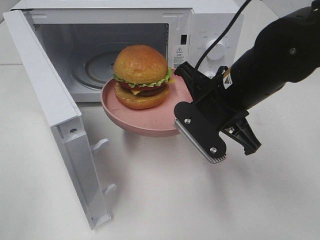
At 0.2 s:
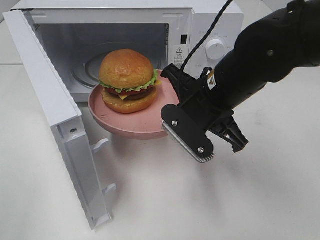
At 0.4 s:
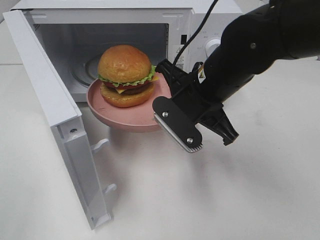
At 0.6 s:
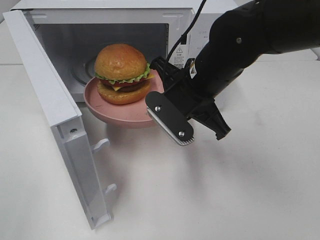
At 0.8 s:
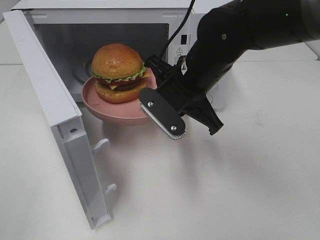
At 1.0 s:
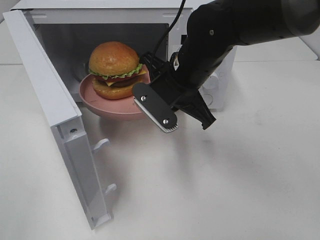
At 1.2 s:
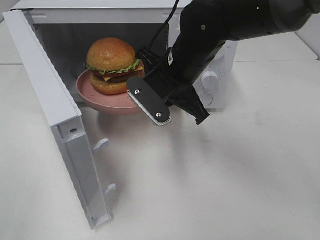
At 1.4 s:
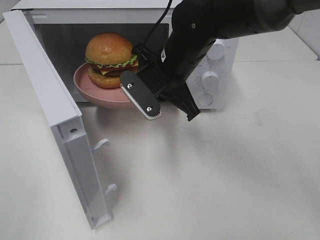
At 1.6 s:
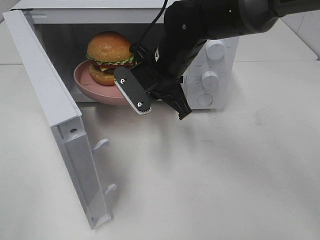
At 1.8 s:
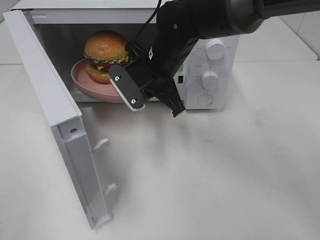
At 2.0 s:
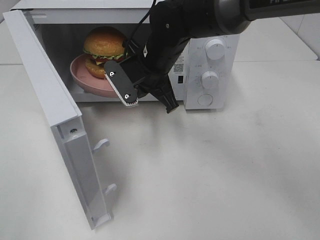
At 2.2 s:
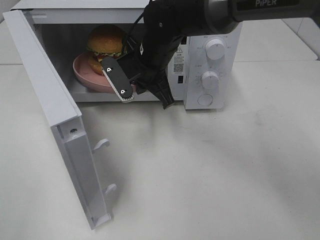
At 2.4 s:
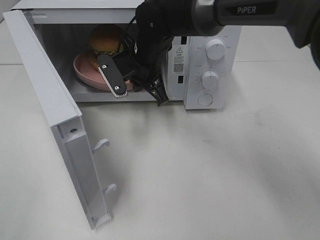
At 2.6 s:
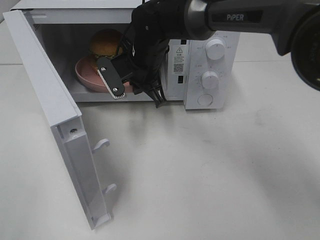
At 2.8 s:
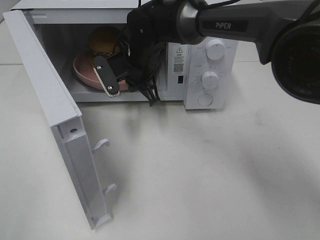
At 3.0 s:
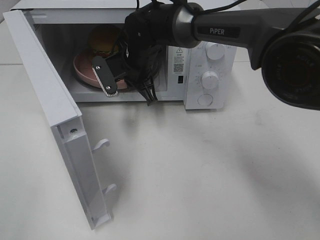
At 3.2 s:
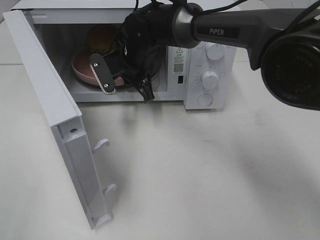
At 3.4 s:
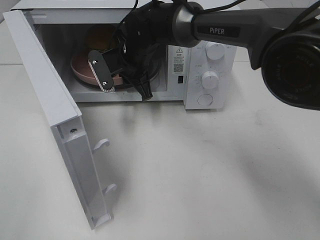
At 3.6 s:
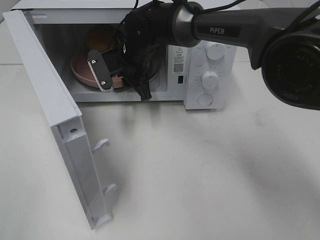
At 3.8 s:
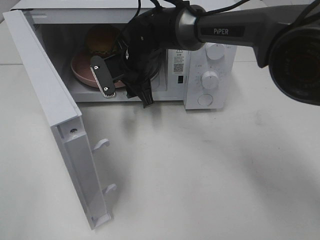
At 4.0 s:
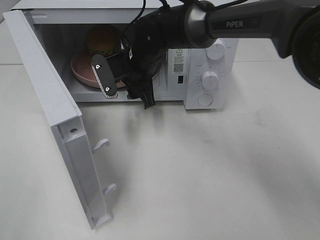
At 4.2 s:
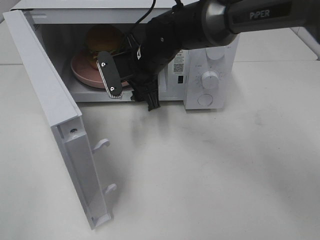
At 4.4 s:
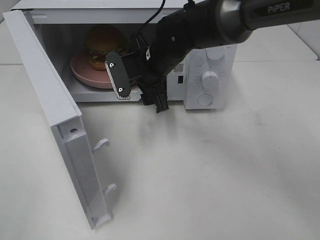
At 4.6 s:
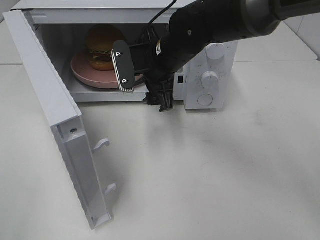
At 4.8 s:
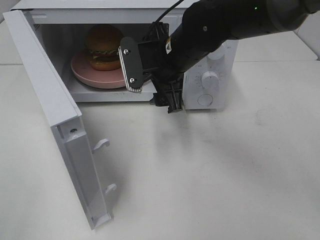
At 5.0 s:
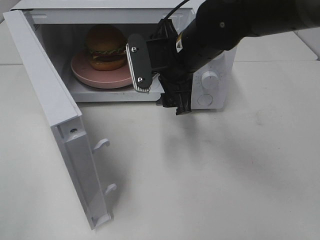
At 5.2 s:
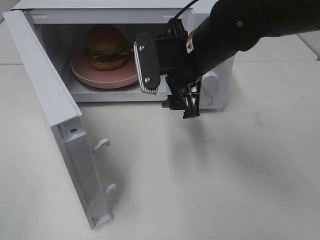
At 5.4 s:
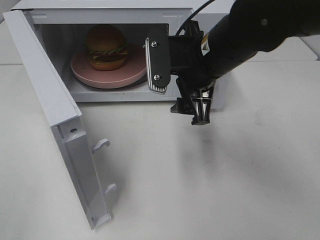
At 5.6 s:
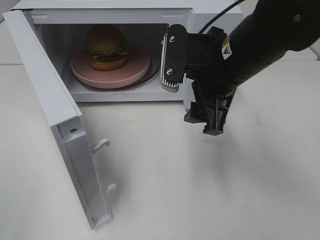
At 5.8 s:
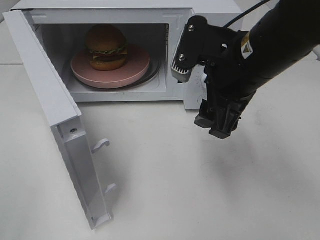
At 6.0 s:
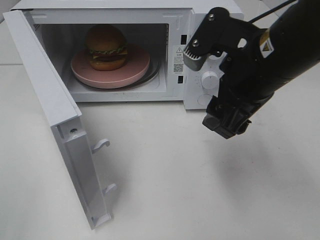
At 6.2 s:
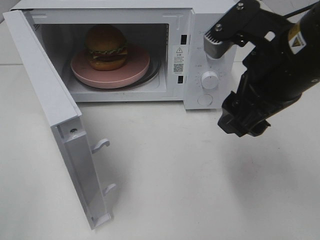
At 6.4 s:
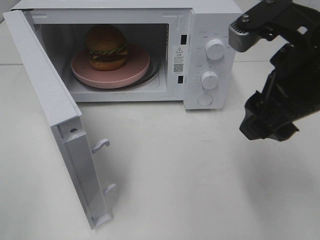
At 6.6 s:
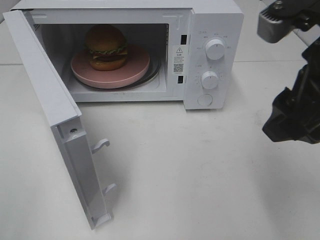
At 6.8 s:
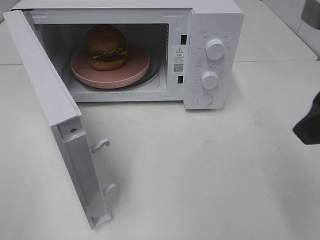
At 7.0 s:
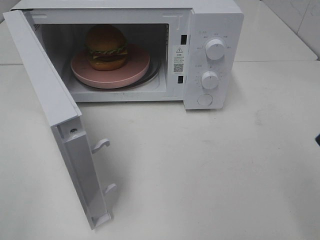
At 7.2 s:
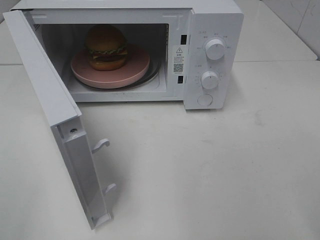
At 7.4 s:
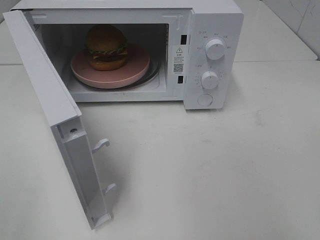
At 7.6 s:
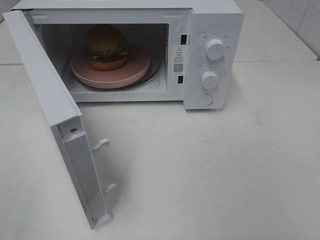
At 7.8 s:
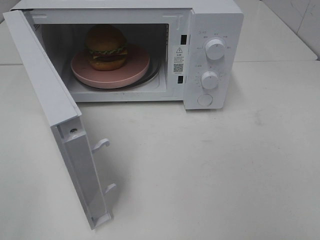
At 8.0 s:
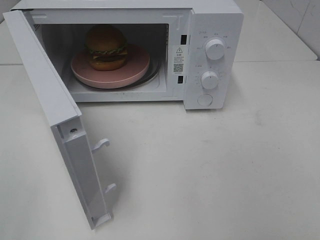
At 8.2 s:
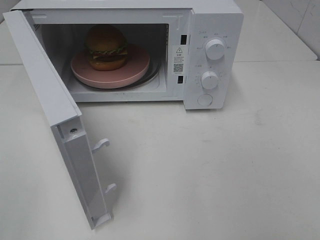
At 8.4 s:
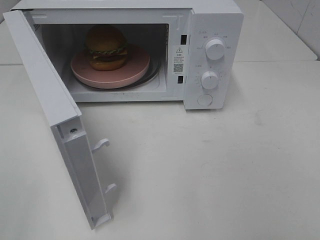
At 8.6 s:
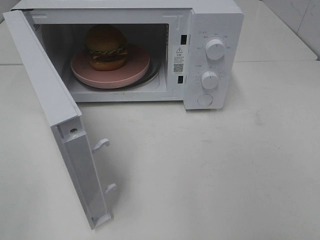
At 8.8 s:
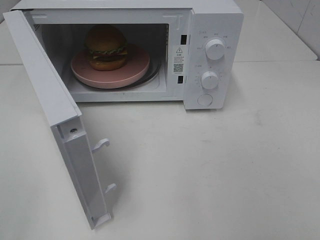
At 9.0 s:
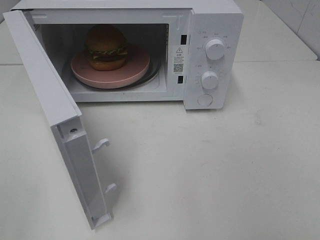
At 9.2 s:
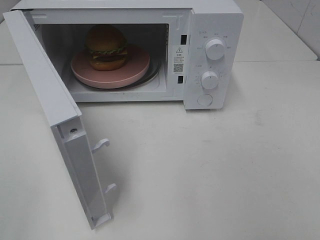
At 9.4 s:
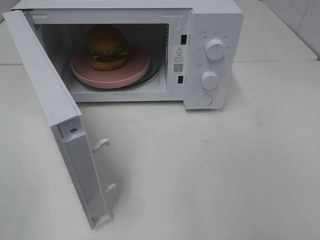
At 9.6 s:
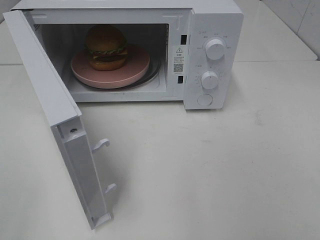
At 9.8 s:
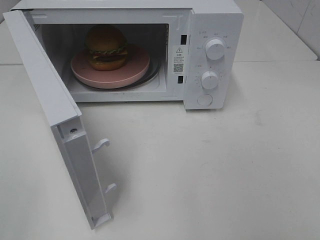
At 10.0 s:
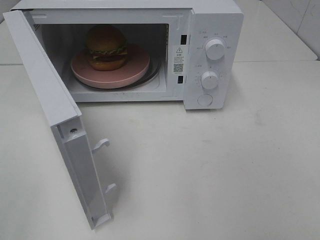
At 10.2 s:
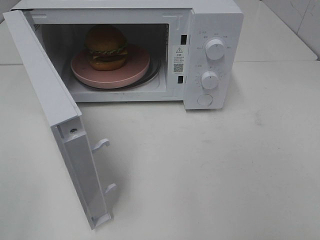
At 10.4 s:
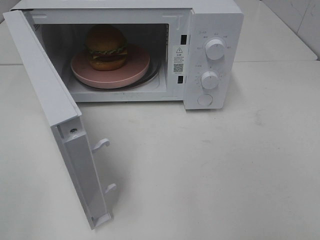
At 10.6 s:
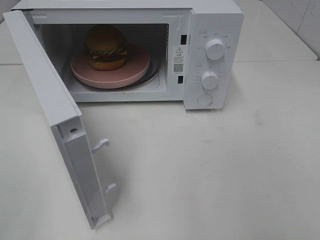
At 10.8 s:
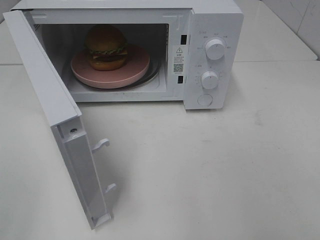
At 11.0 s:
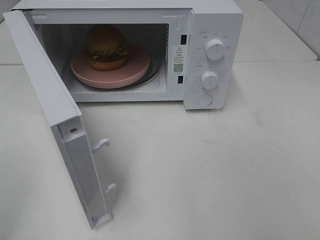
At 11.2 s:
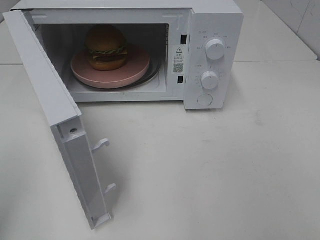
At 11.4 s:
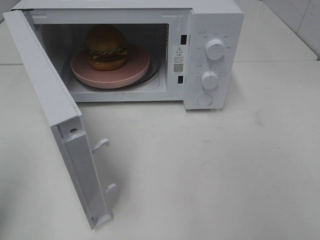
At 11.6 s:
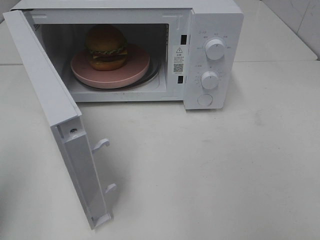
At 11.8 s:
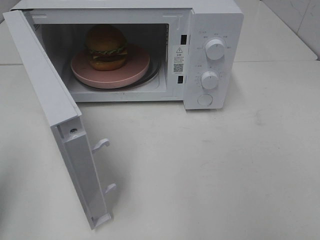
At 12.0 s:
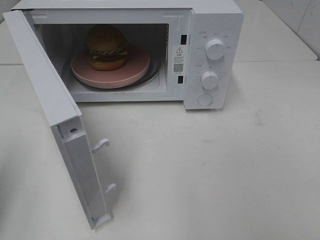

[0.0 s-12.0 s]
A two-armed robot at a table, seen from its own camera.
Task of the whole recording: Heat the burger.
Step, 0.0 to 3.8 s: Right hand: place the plate in the microwave.
0.0 to 1.6 s: The right gripper shifts some 10 cm forward and to the left.
1.6 to 3.0 s: The right gripper goes some 10 cm forward and to the left.
3.0 to 4.4 s: The right gripper shifts by roughly 5 cm, and opens up.
4.4 to 6.0 s: The right gripper goes about 20 cm backward, to the right and upward.
6.0 to 7.6 s: The right gripper heads backward and to the right, covering roughly 25 cm.
9.0 to 10.4 s: Both grippers stay put.

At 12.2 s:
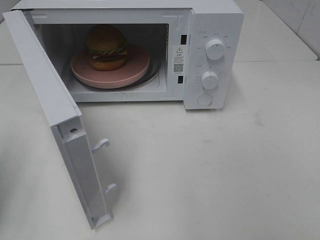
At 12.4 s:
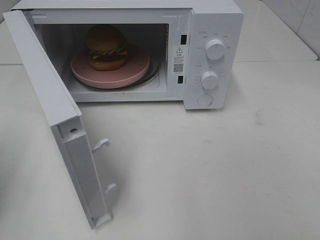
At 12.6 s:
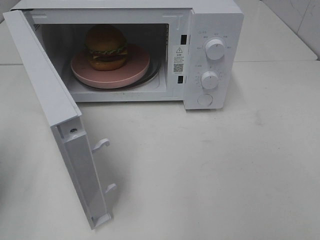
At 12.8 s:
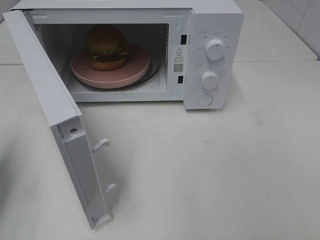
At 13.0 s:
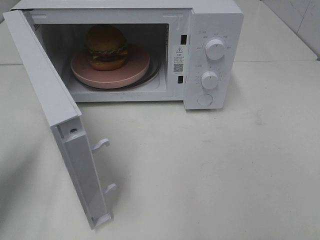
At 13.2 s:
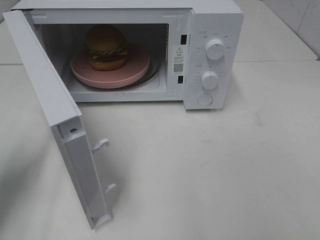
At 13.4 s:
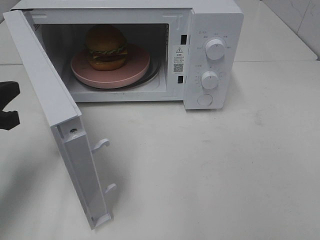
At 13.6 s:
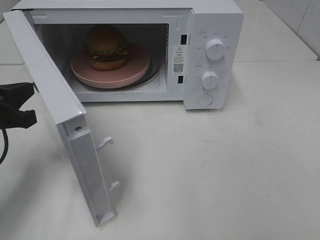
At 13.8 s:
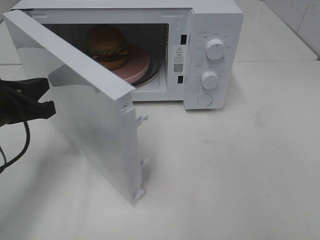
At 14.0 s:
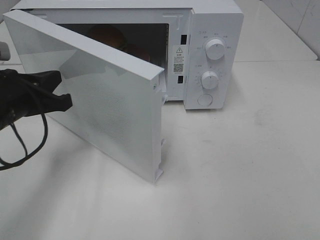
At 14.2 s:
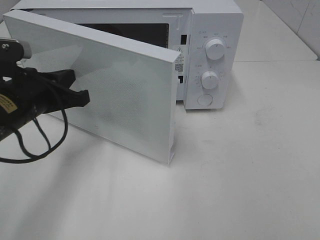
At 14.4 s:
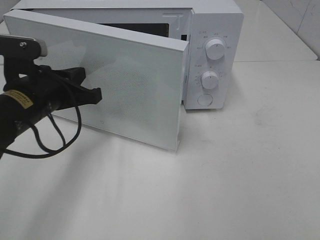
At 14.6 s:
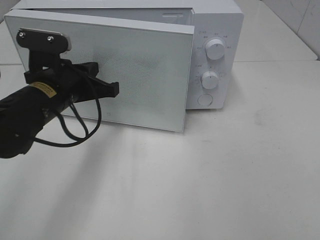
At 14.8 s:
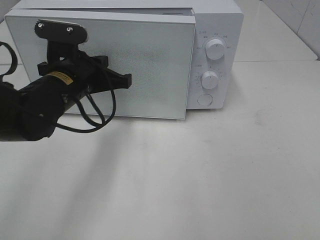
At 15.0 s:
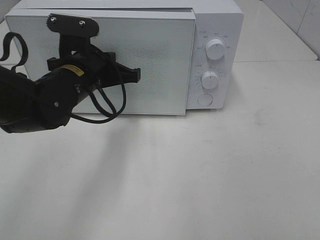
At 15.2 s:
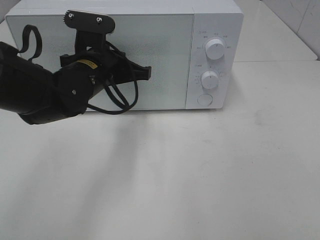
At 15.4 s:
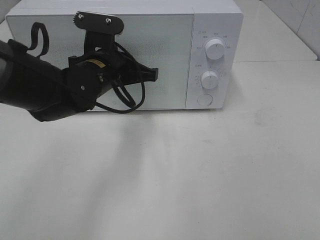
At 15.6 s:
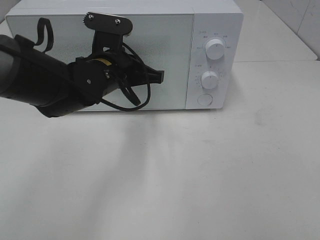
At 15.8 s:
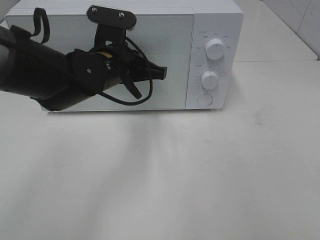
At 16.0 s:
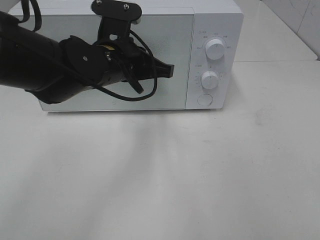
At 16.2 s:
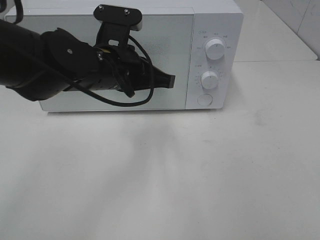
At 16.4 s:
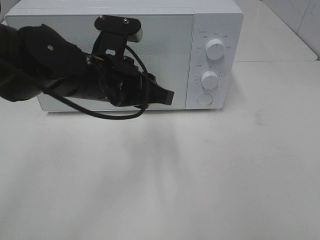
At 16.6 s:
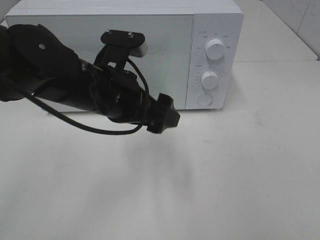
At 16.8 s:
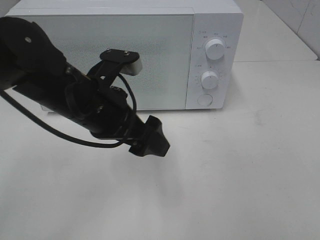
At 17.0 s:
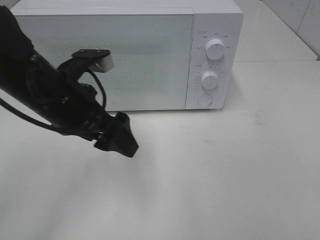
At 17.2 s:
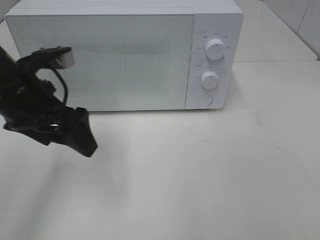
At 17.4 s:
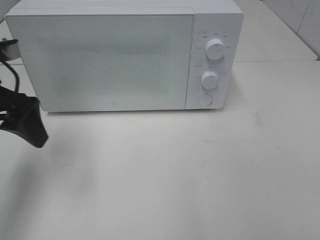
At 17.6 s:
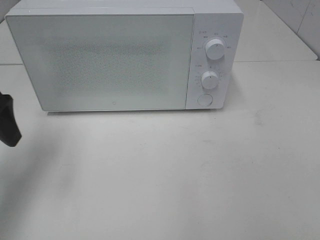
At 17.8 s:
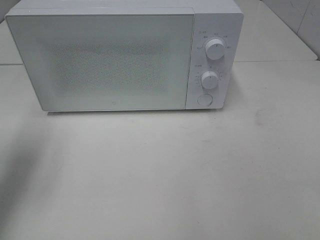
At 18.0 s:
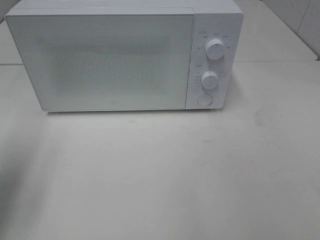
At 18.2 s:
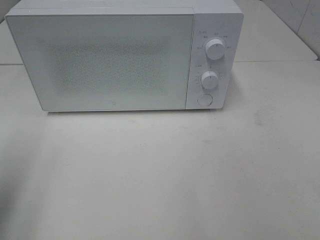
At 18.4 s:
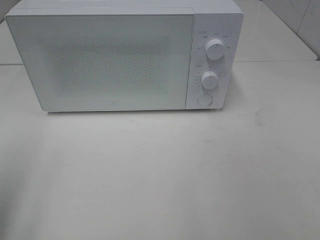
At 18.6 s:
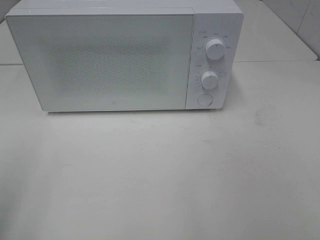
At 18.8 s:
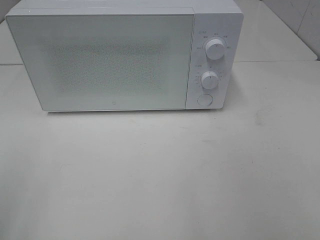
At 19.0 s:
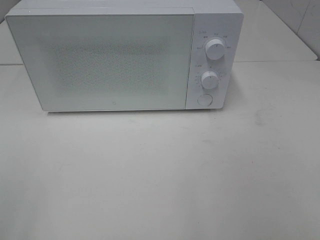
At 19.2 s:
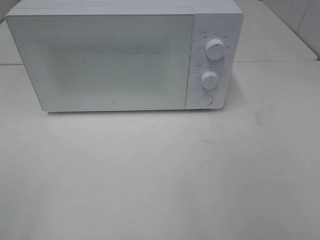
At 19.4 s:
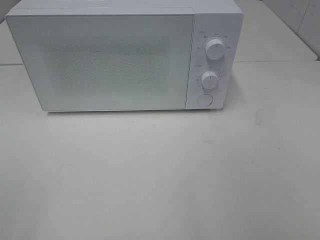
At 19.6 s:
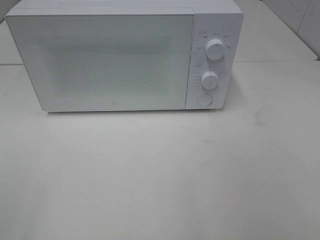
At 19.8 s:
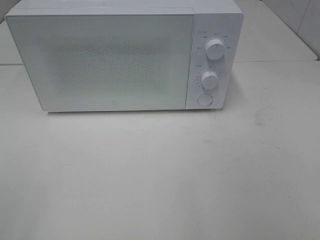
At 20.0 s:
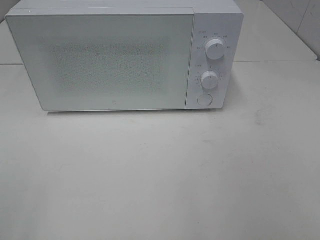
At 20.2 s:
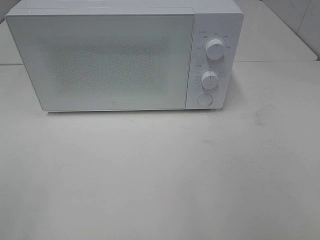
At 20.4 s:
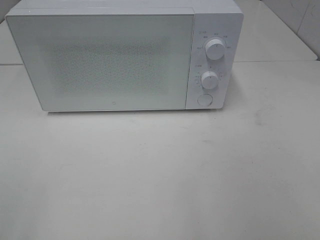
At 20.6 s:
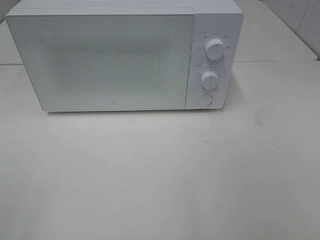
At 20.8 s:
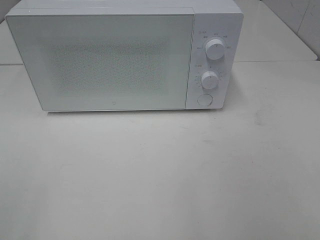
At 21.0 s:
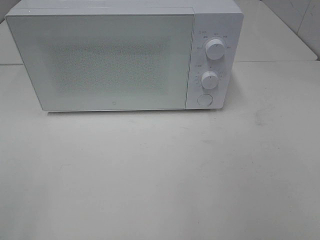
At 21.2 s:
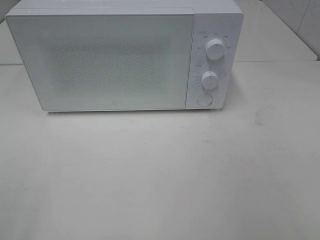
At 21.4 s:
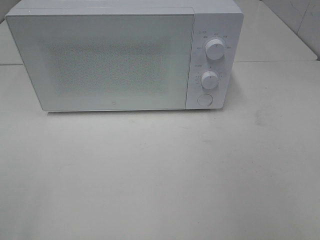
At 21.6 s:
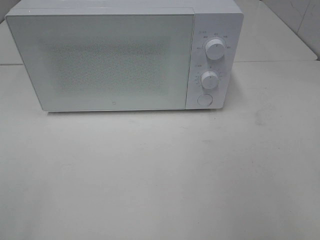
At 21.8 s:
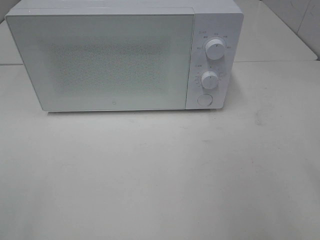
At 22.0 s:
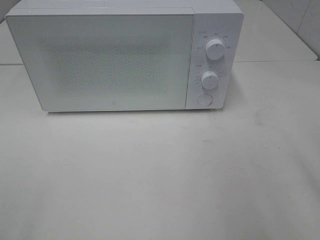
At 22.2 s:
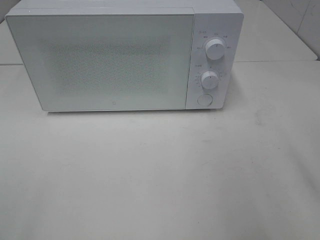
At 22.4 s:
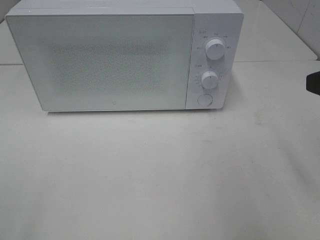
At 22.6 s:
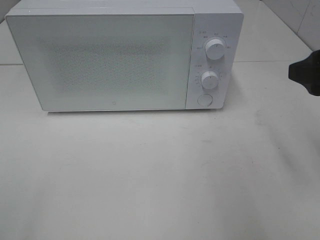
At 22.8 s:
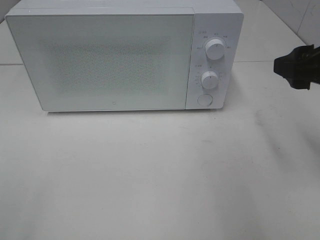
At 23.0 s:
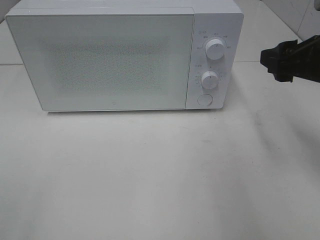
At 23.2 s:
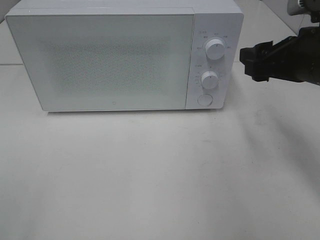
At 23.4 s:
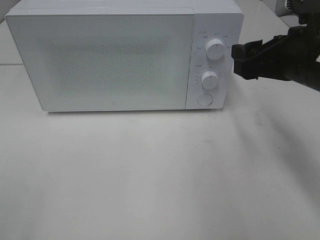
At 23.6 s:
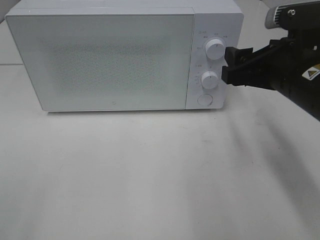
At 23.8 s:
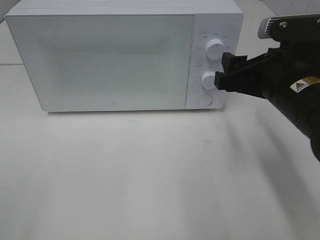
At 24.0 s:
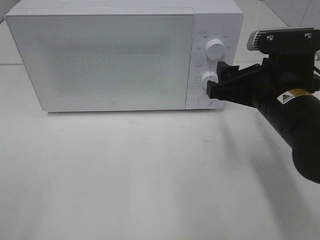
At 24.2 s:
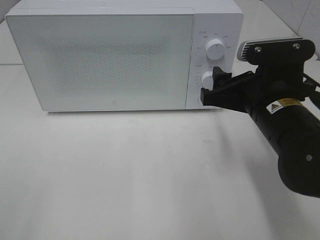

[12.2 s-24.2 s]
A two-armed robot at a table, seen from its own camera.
Task of the whole recording: Heat the burger.
Step, 12.2 to 16.2 s: Left hand: close the microwave door.
12.2 to 13.8 s: The left gripper heads forward, to the right and downward, covering some 15 cm.
13.8 to 15.2 s: The left gripper is displaced to the right and forward by some 15 cm.
15.2 to 16.6 s: The left gripper travels backward by approximately 5 cm, and opens its fingers.
16.6 to 18.2 s: The left gripper goes some 25 cm to the left and backward.
18.2 to 19.8 s: The left gripper goes approximately 15 cm backward.
21.2 to 22.6 s: The right gripper moves forward, about 20 cm.
22.6 to 24.2 s: The right gripper is displaced to the left and downward by about 15 cm.
